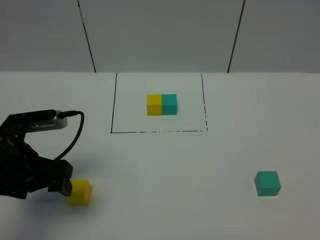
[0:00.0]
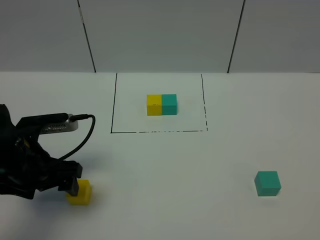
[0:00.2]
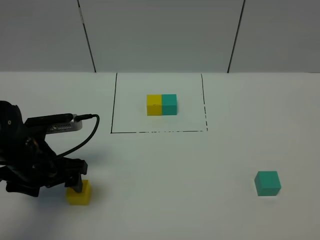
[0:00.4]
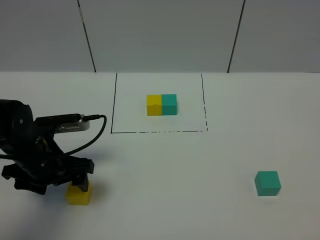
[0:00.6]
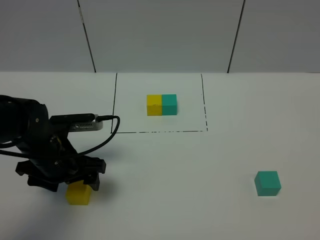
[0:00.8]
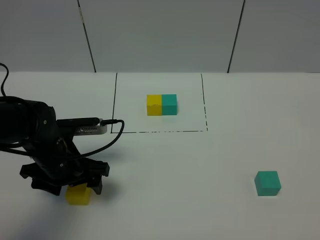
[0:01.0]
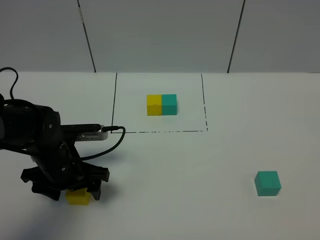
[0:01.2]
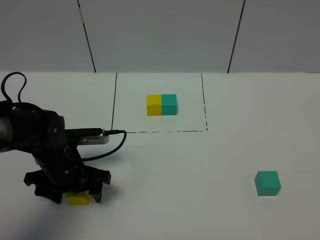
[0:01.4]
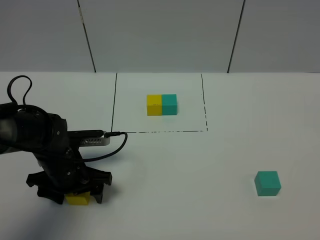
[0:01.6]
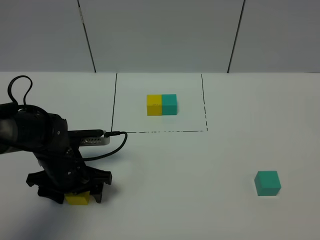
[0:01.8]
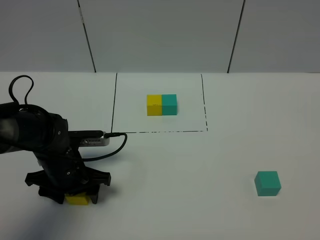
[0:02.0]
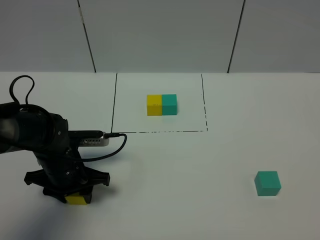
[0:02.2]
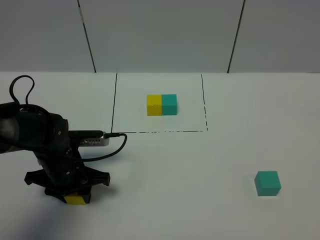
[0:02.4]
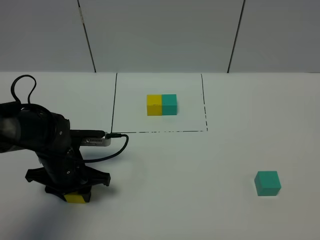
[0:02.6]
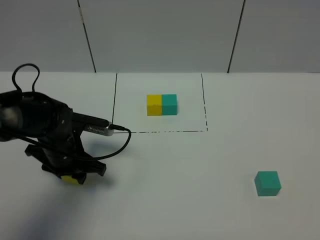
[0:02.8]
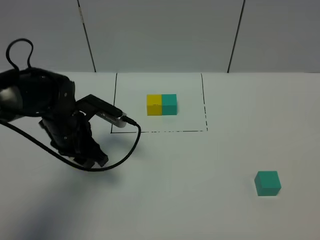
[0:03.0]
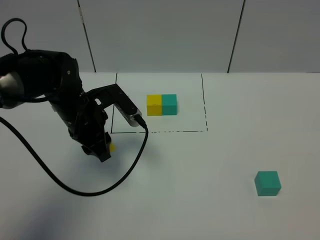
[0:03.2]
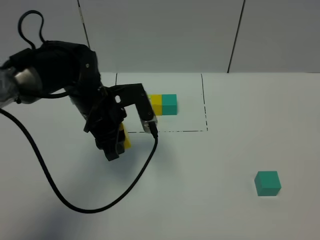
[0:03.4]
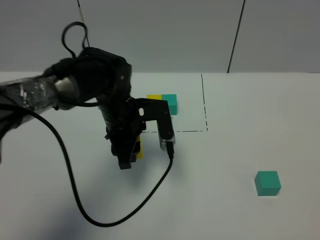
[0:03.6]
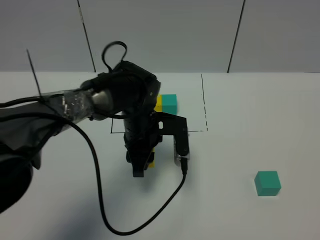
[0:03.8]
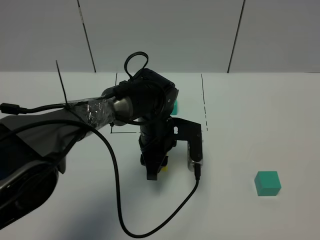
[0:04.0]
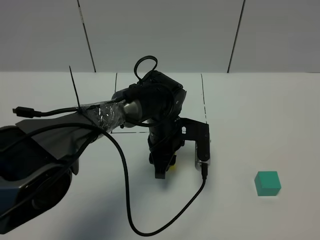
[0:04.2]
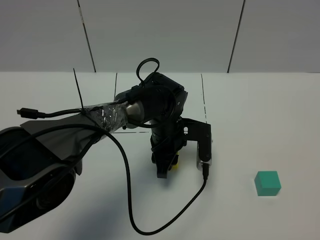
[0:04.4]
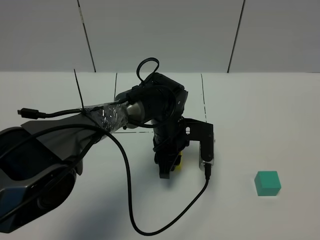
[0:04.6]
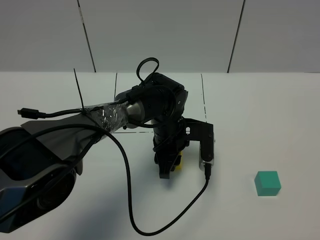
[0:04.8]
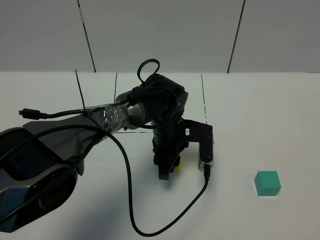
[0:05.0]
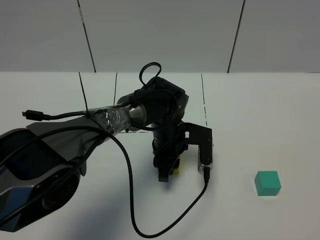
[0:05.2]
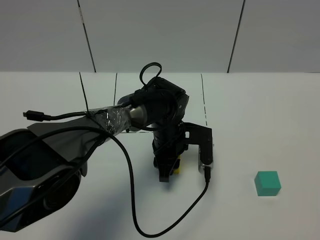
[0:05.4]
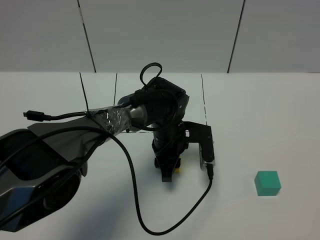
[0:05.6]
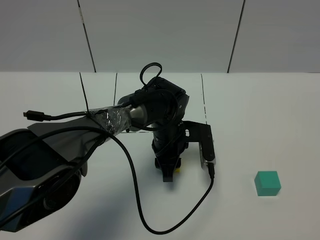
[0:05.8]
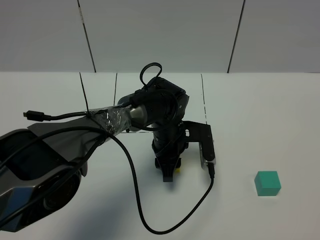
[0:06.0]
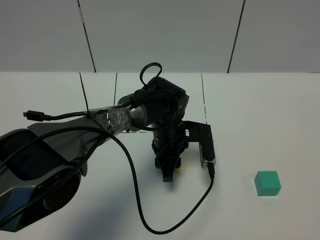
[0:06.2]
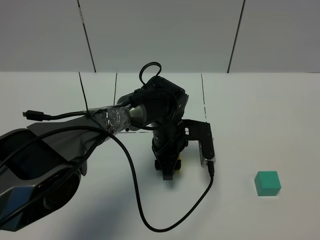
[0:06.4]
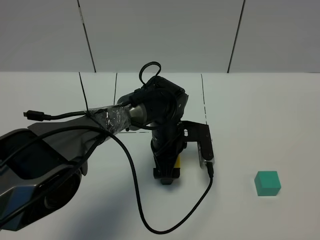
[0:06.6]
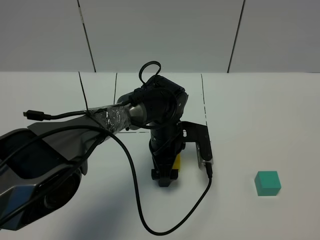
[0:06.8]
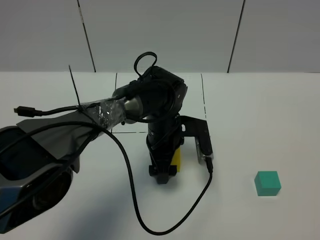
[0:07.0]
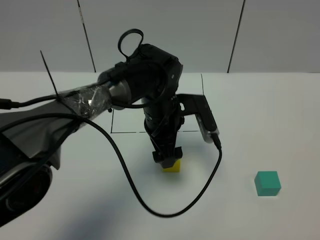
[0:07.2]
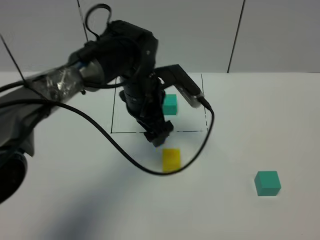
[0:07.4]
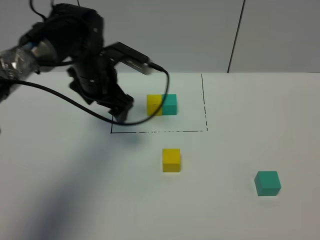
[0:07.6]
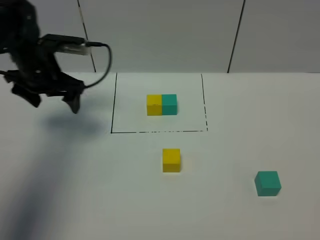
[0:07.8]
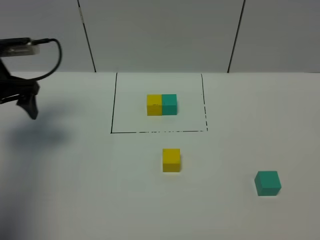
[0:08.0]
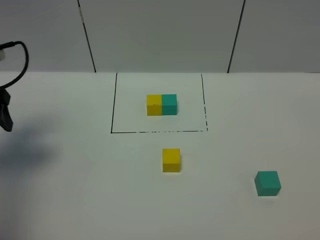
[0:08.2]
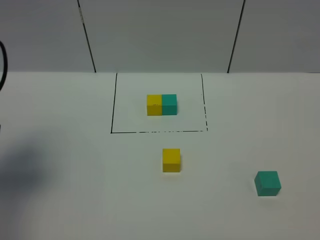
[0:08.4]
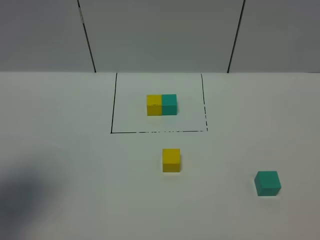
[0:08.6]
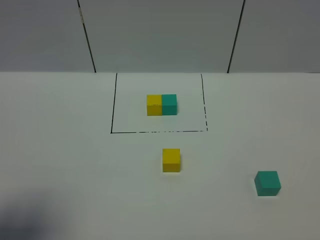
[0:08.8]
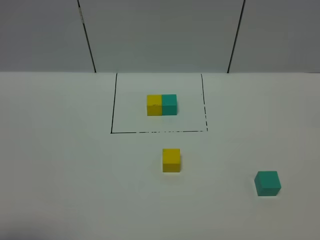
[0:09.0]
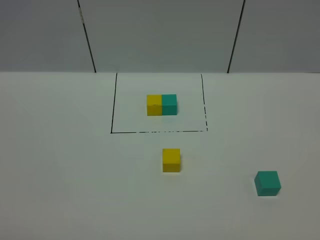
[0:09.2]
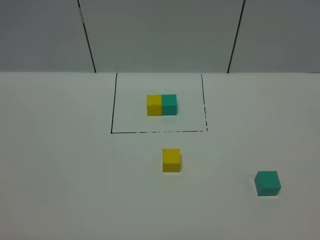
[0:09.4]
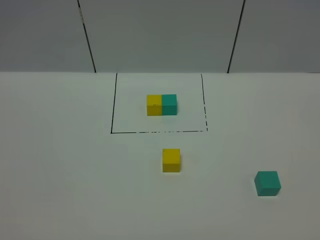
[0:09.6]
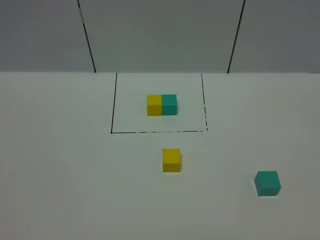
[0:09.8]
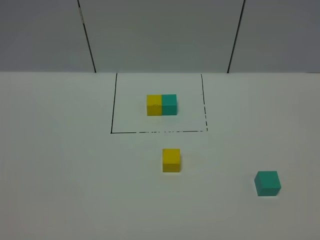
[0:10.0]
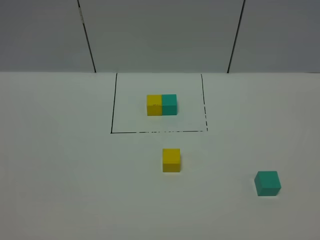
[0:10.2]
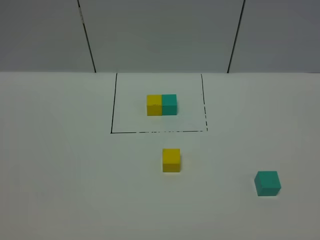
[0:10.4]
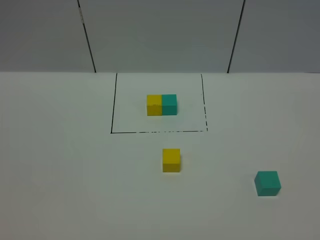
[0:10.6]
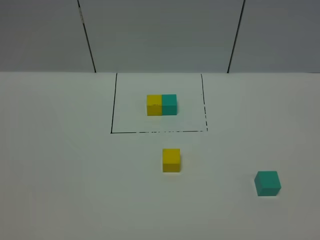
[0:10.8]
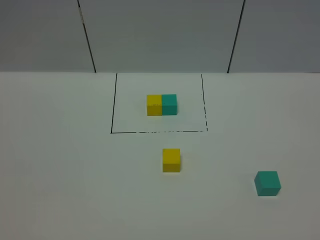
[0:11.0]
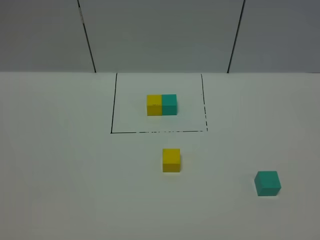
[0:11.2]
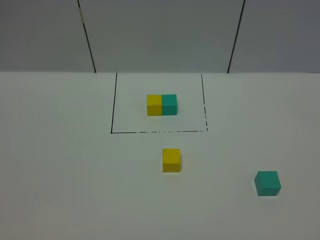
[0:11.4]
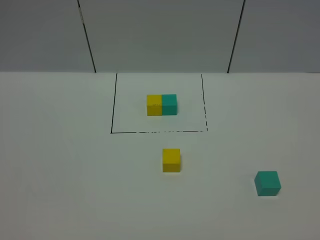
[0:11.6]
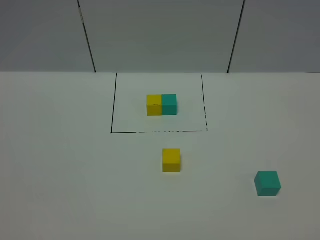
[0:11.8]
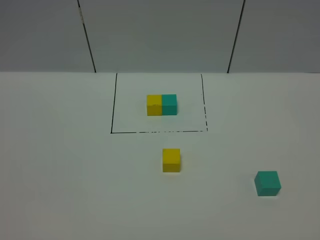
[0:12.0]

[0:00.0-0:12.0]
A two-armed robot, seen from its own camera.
Task of the whole recording: According to the building block template in front, assemble the scattered blocks together.
Step, 0:00.0 to 0:06.8: Put the yellow cube in the center of the table.
0:00.0 to 0:01.6: The left gripper shifts about 10 cm downward and forward.
0:01.6 to 0:03.0: The left gripper heads upward and forward, covering about 10 cm, and closes up.
0:03.0 to 0:04.4: The left gripper is displaced to the right by roughly 20 cm.
0:04.4 to 0:06.0: The grippers make only small movements.
0:06.0 to 0:07.6: The left gripper is displaced to the left and upward by roughly 20 cm, and opens its fingers.
0:07.6 to 0:09.0: The left gripper heads backward and to the left, covering roughly 40 cm.
0:10.4 to 0:12.0: Both grippers stay about where they are.

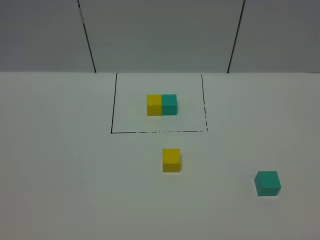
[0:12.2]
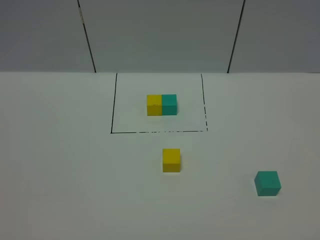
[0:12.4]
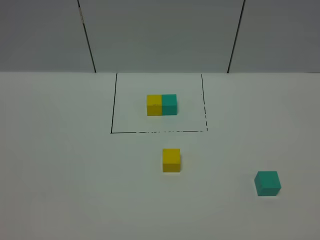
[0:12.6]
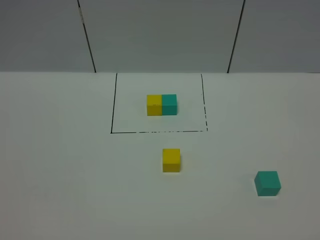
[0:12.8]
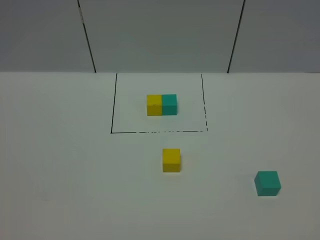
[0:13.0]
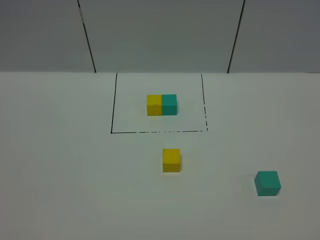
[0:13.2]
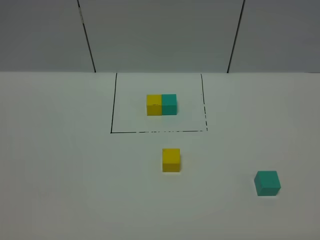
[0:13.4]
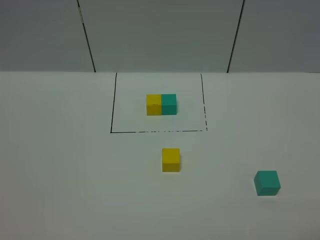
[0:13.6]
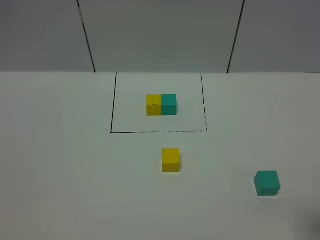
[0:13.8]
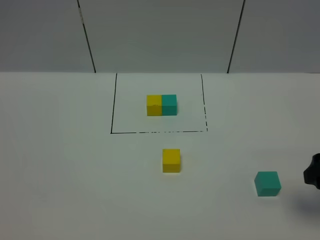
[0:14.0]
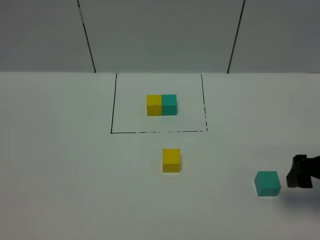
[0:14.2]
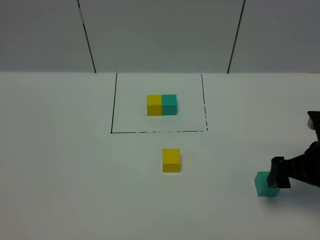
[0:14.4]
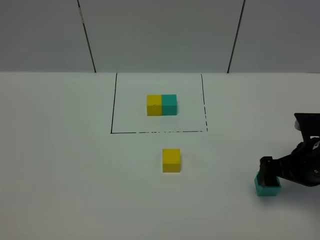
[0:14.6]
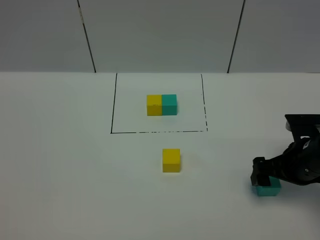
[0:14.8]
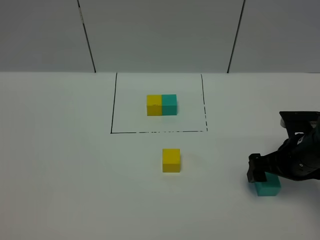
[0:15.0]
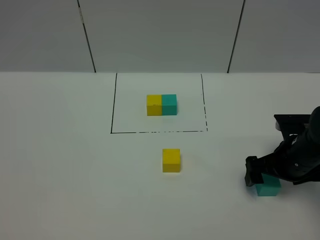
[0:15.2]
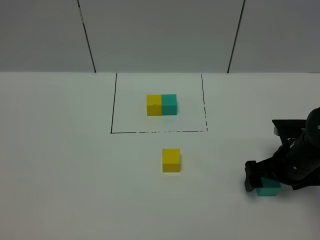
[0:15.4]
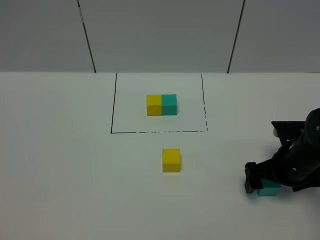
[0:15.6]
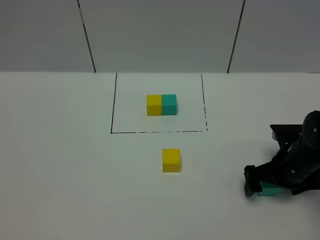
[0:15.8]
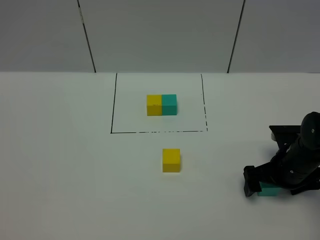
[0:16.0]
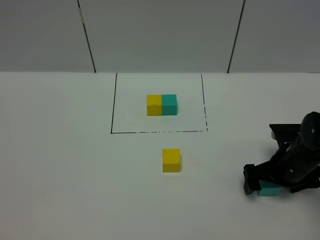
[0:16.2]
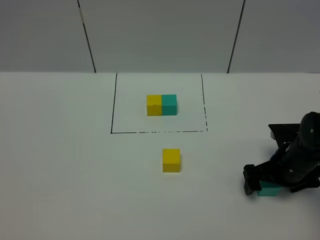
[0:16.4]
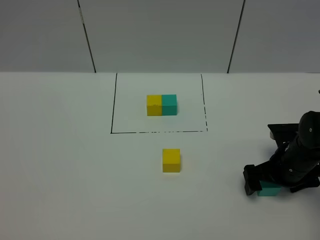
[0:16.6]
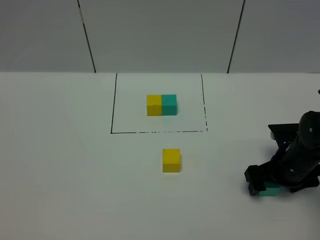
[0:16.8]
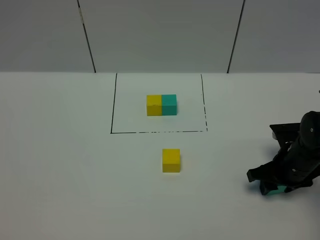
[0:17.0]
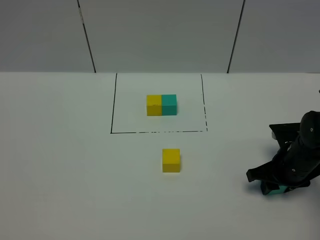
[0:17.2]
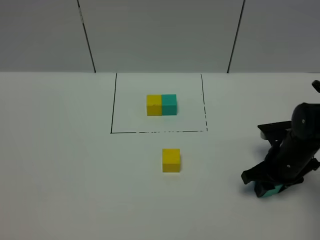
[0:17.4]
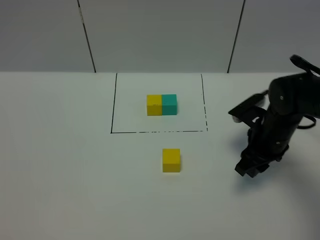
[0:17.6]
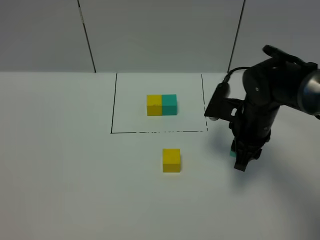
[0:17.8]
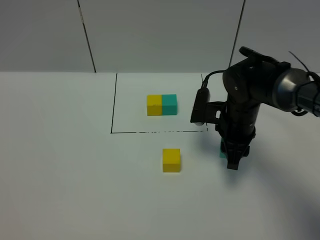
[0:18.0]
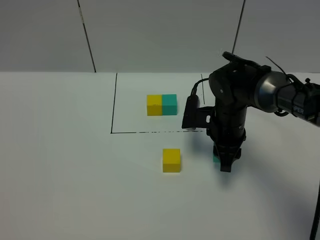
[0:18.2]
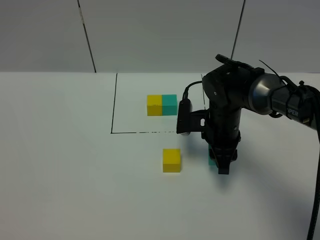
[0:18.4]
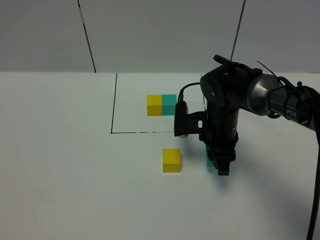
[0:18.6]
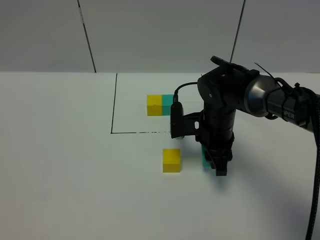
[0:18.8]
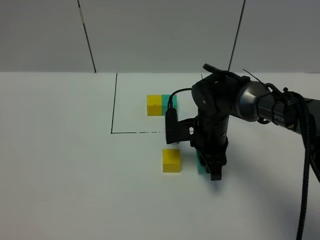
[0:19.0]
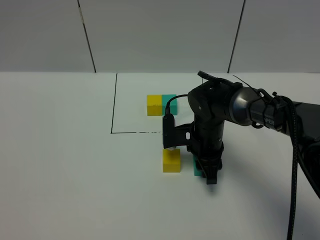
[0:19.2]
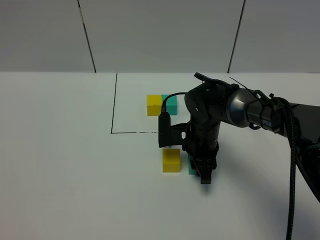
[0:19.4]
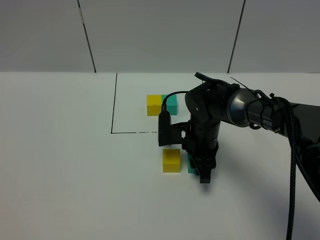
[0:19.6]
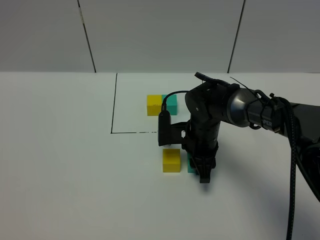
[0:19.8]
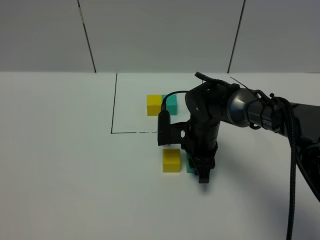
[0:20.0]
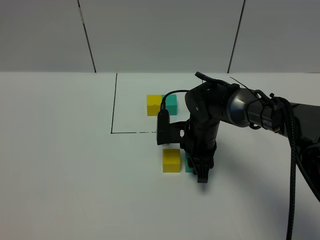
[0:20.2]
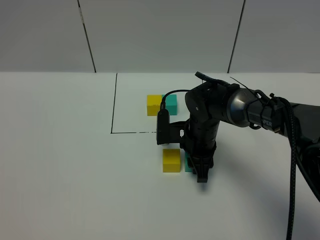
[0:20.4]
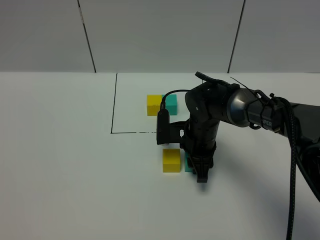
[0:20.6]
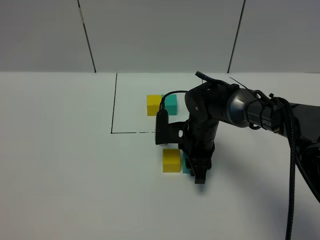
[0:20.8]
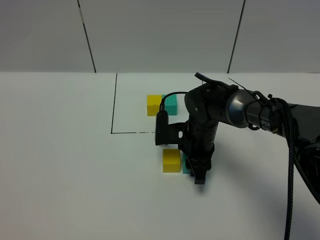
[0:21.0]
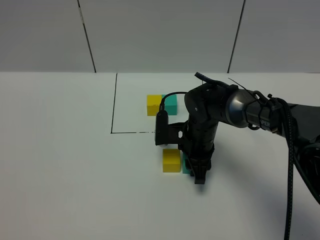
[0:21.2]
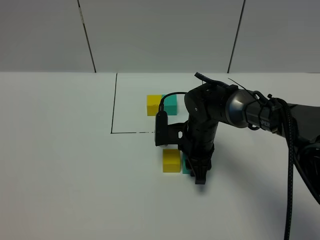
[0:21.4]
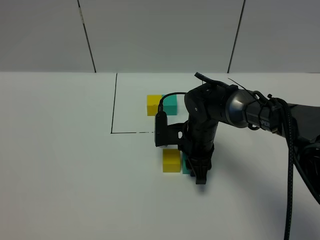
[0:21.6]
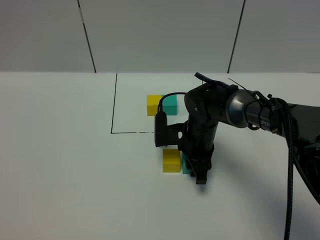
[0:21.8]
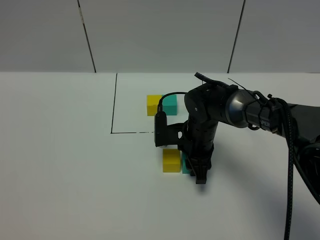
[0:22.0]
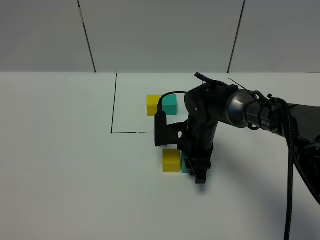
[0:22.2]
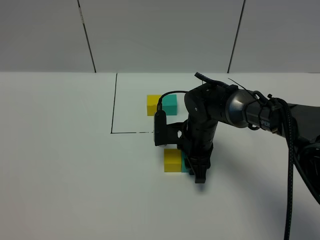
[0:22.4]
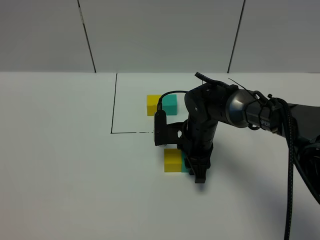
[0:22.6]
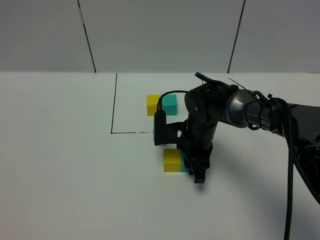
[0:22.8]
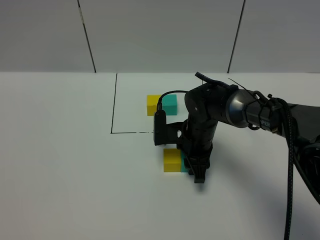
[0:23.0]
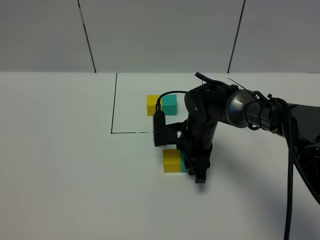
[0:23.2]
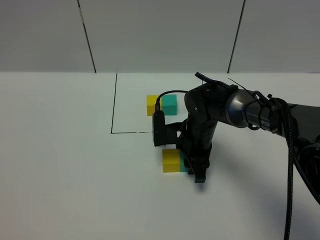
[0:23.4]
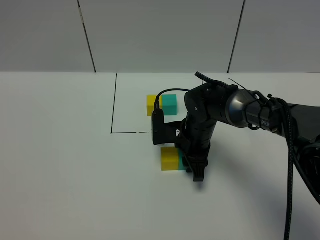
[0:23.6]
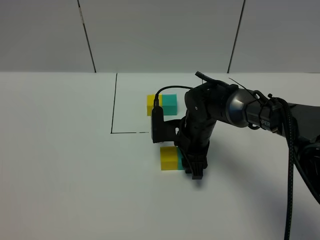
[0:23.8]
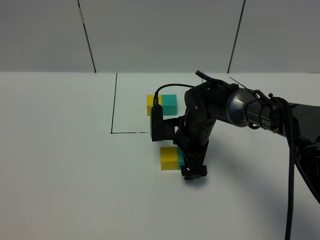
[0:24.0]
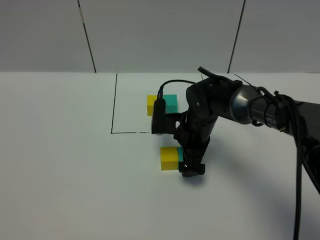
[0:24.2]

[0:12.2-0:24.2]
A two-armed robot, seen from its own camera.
Task of the whole recording: According to the building block template in front, assemble the scattered blocks together.
Step, 0:12.2 to 0:24.0: Put the green cube on the right of the yellow cube.
0:13.8 to 0:15.2: The right gripper is displaced forward, downward and to the left by approximately 20 cm.
0:15.2 to 0:16.6: The grippers move only a little.
0:16.6 to 0:18.2: The right gripper heads to the left and forward, covering approximately 15 cm, and closes its fingers.
0:18.2 to 0:19.8: The right gripper changes place by some 5 cm.
0:19.8 to 0:22.6: Neither gripper changes place.
0:22.6 to 0:24.2: The right gripper opens.
